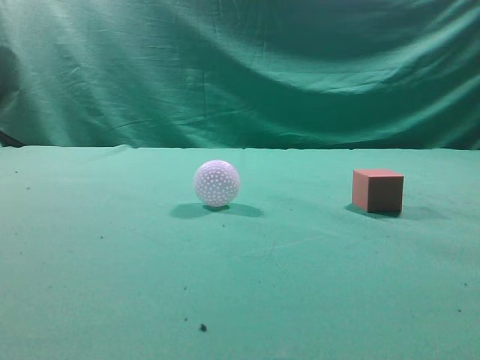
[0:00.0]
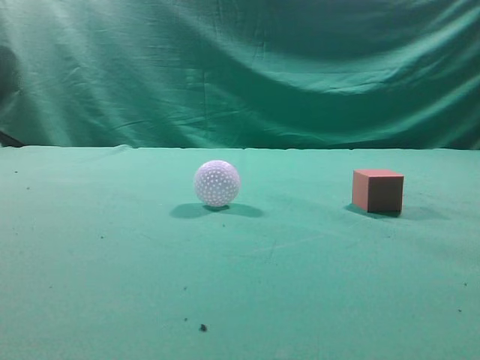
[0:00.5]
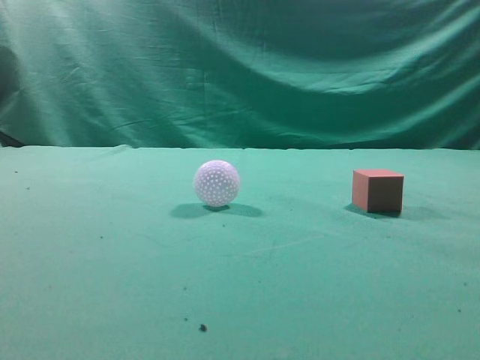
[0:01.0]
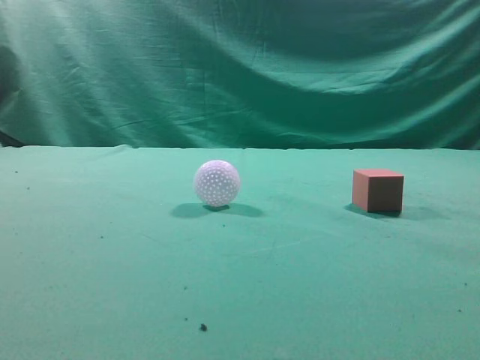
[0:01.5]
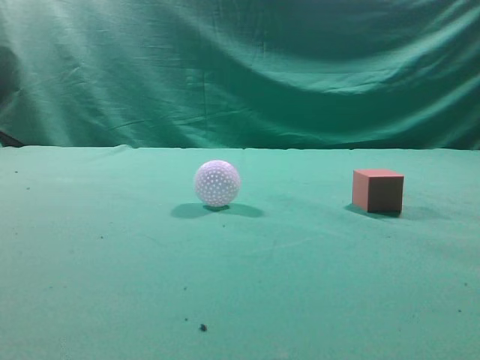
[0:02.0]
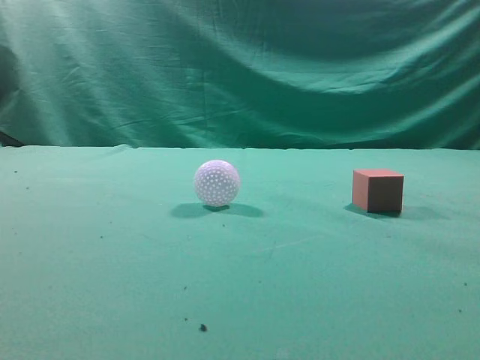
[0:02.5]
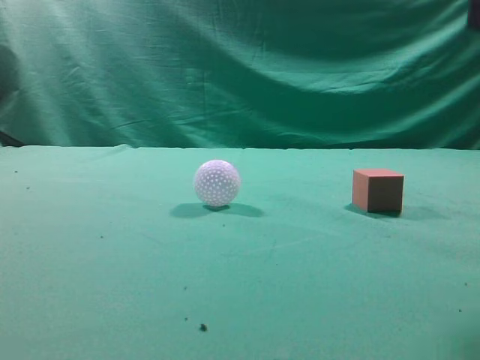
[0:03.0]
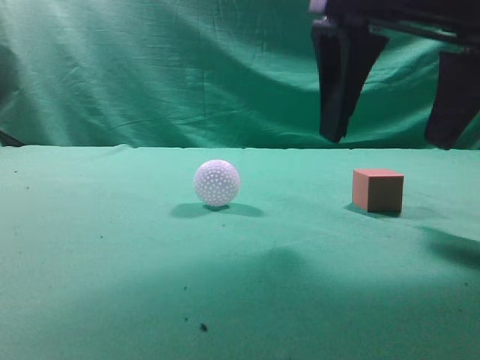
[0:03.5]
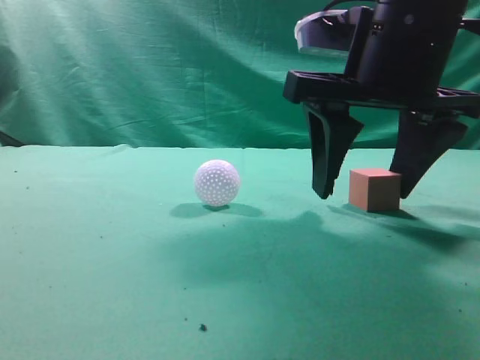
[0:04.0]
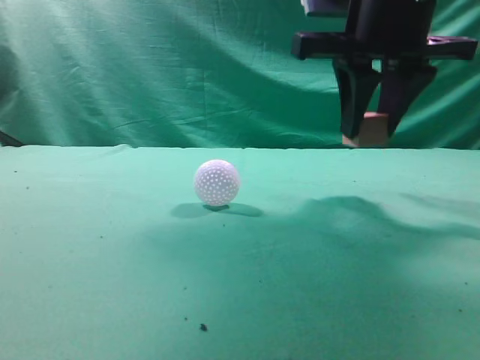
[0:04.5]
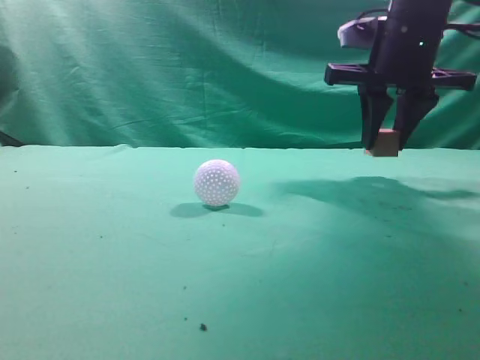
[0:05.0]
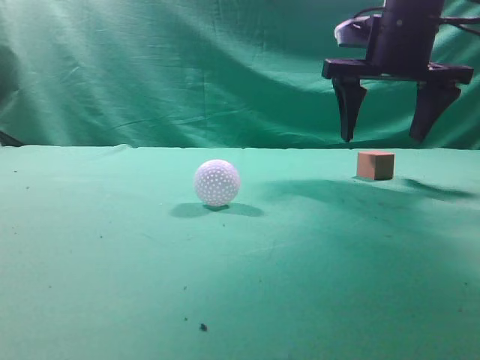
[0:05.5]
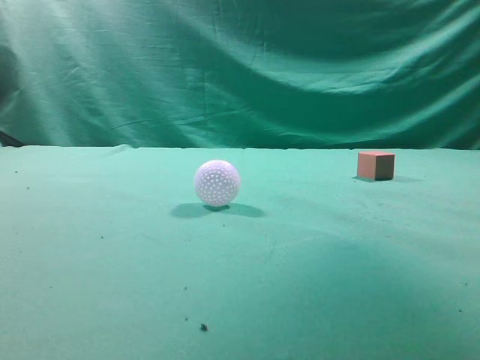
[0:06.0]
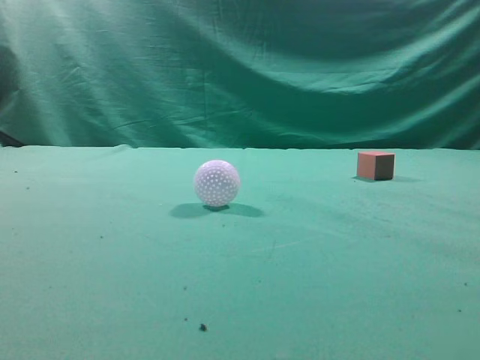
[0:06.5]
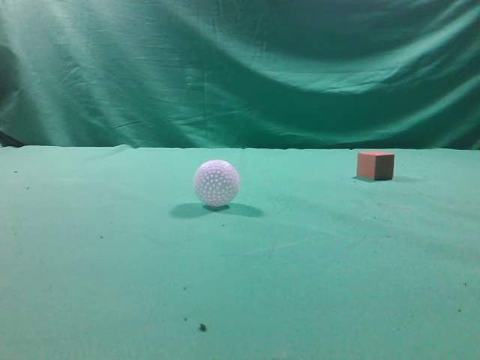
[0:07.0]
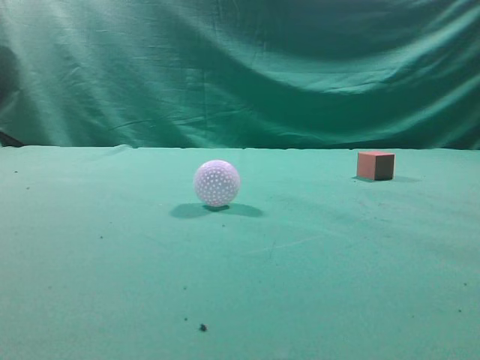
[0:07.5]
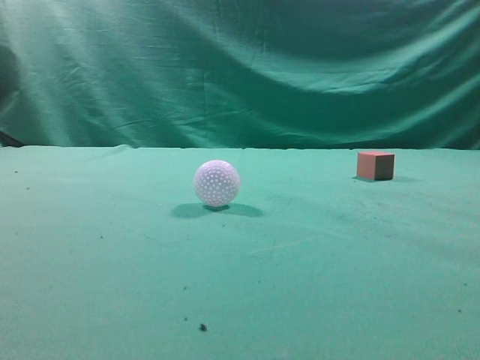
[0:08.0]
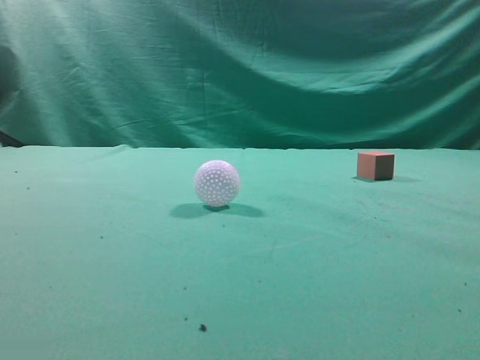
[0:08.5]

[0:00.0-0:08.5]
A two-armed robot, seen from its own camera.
Task of the whole recording: pick up the cube block and place it in another position on the table.
Step, 0:00.0 to 0:04.0: Pick up the small cube.
Step, 0:04.5 to 0:05.0: Place the small cube on the ahead of the table.
0:02.0 to 0:04.0: The right gripper travels forward, to the left and downward by about 30 cm, and opens.
0:04.0 to 0:06.5: The right gripper heads upward, backward and to the right, covering about 30 cm, and closes its fingers.
